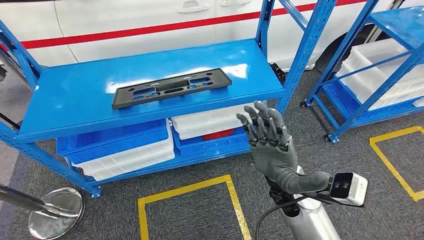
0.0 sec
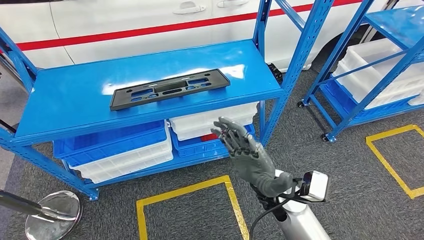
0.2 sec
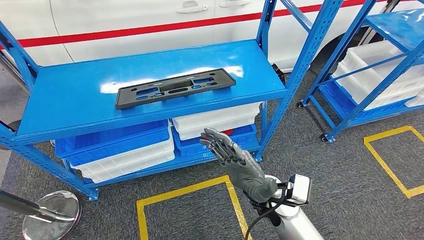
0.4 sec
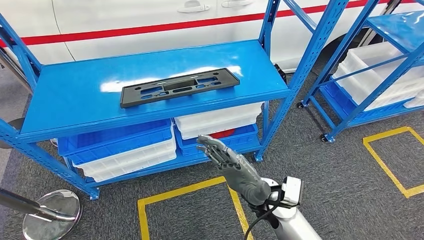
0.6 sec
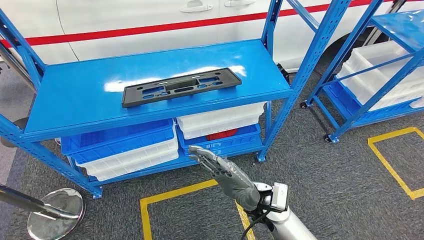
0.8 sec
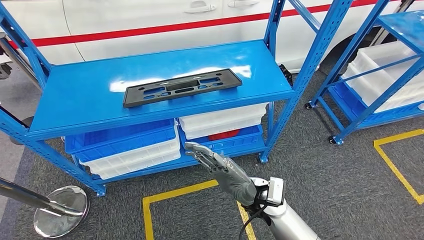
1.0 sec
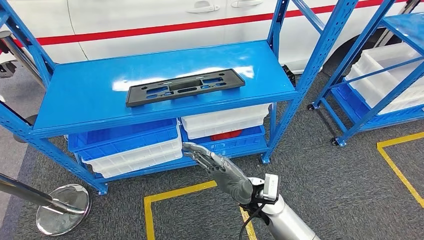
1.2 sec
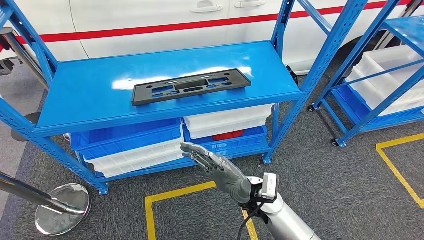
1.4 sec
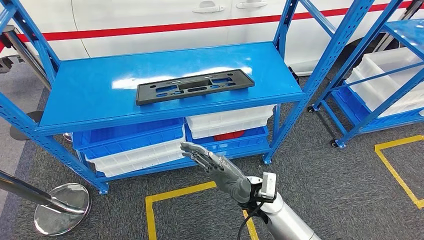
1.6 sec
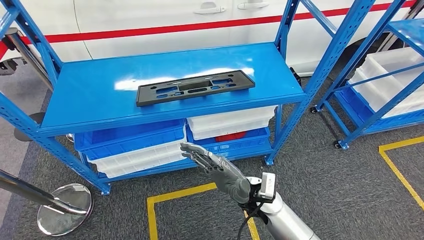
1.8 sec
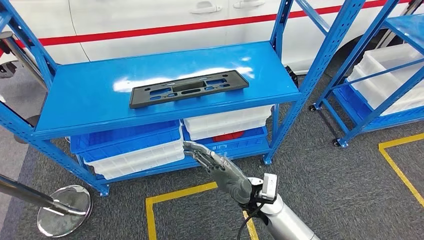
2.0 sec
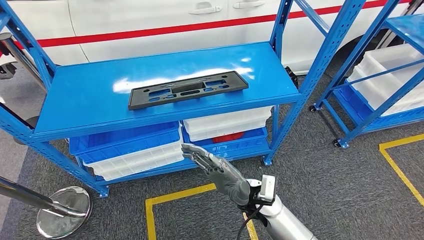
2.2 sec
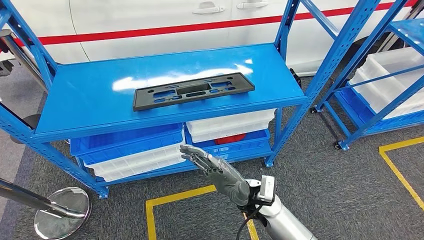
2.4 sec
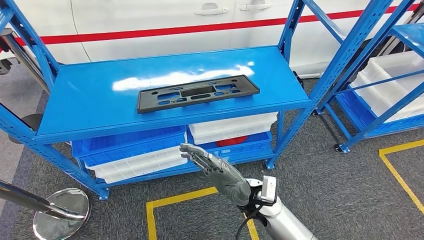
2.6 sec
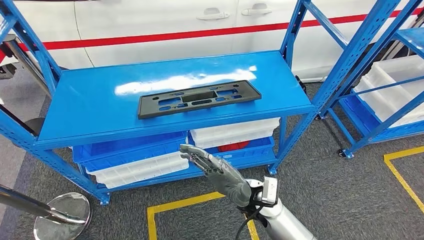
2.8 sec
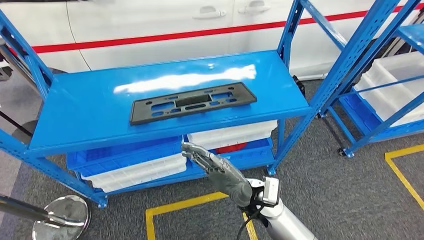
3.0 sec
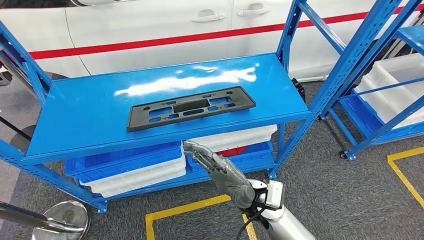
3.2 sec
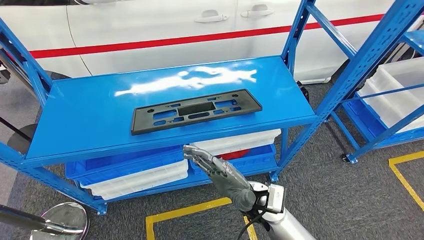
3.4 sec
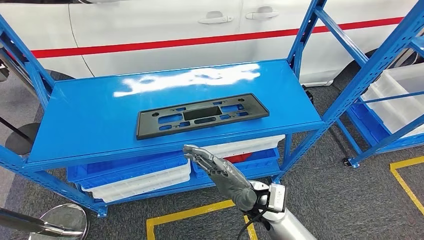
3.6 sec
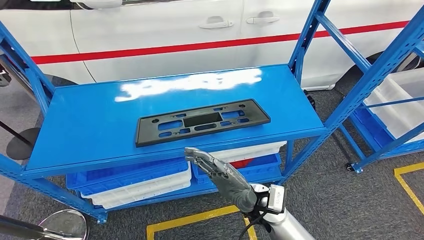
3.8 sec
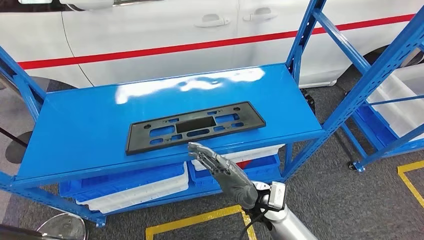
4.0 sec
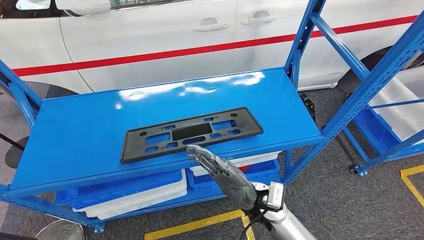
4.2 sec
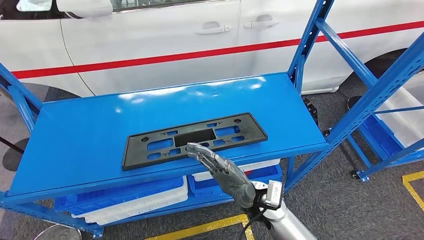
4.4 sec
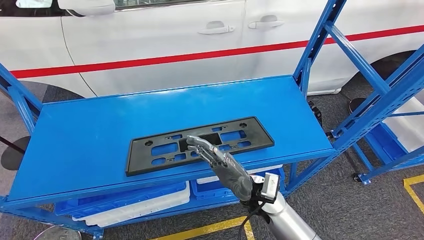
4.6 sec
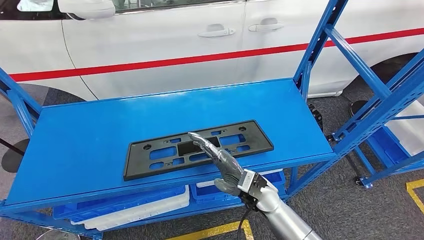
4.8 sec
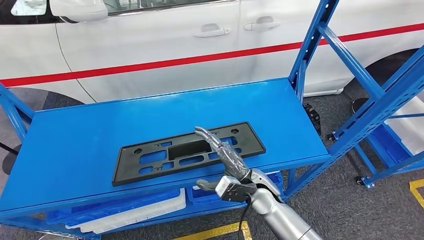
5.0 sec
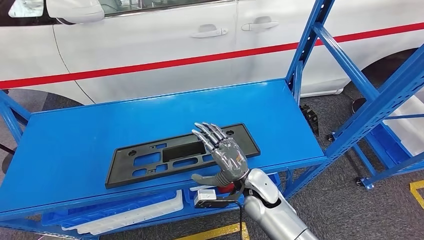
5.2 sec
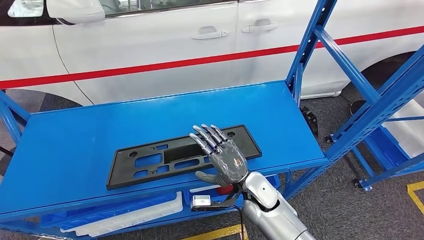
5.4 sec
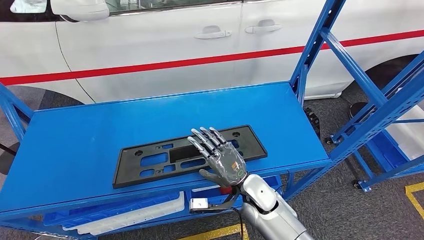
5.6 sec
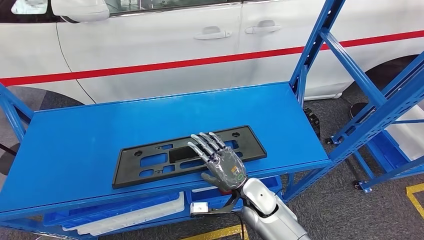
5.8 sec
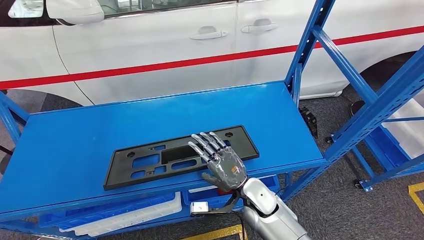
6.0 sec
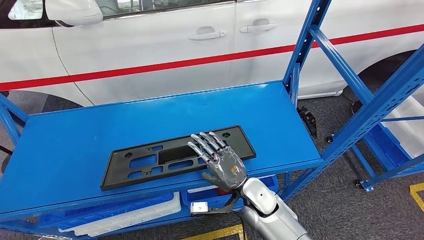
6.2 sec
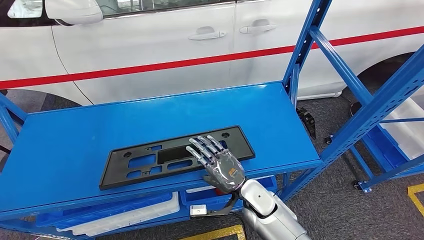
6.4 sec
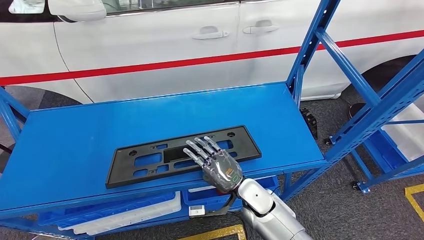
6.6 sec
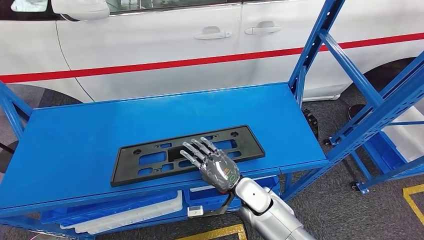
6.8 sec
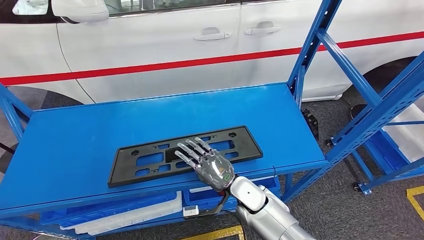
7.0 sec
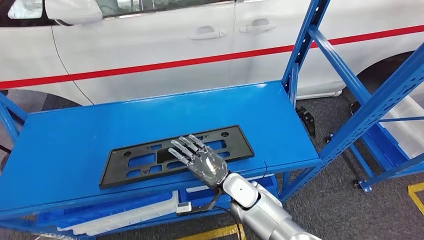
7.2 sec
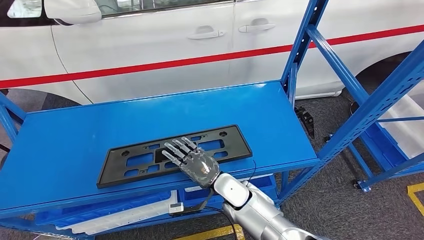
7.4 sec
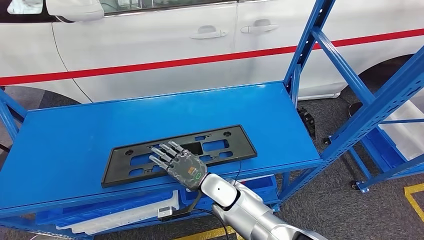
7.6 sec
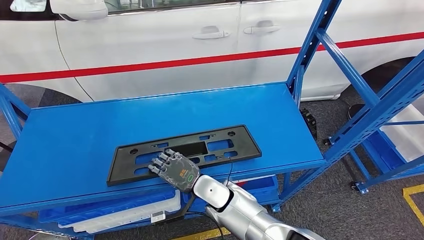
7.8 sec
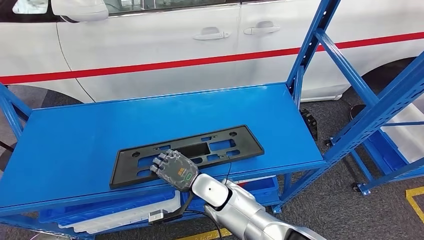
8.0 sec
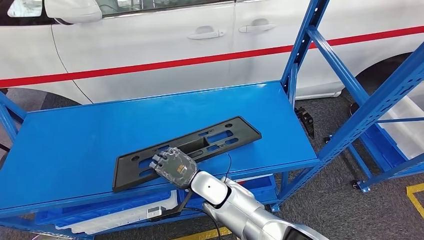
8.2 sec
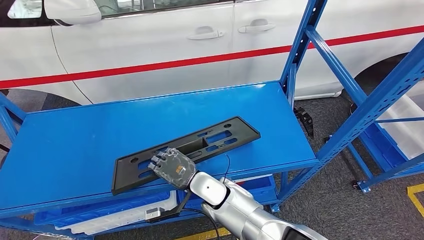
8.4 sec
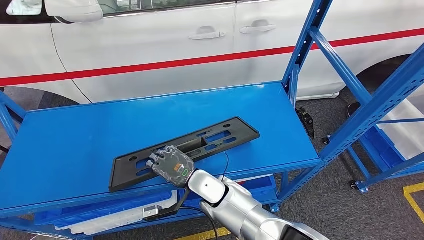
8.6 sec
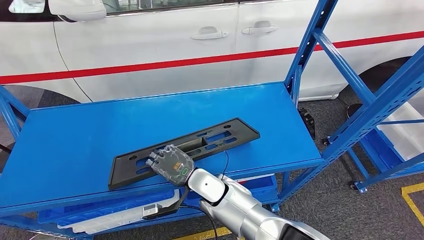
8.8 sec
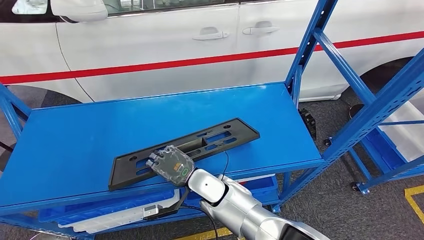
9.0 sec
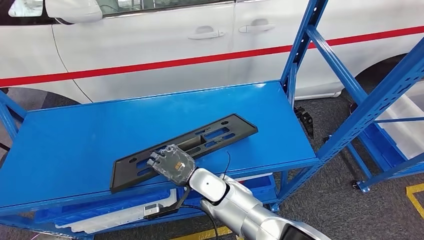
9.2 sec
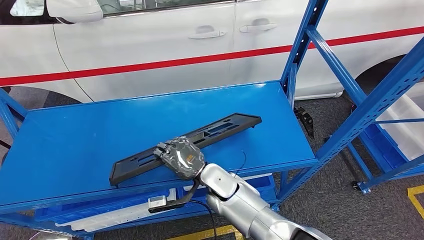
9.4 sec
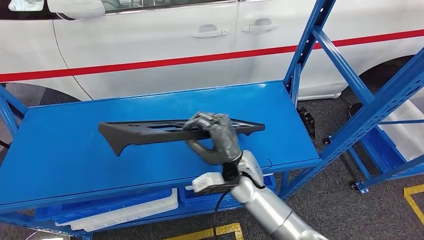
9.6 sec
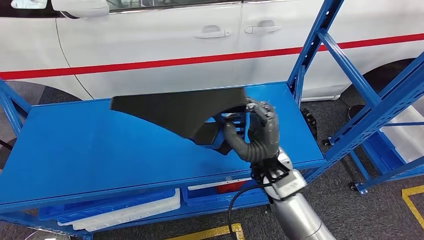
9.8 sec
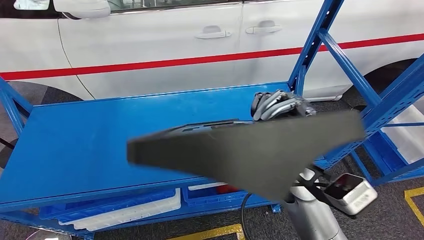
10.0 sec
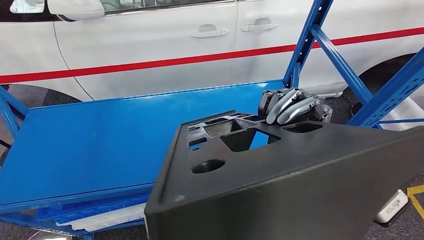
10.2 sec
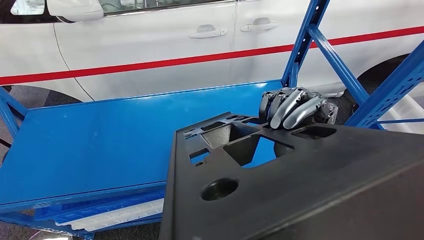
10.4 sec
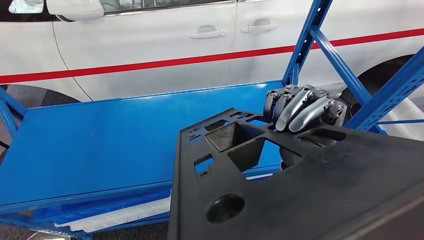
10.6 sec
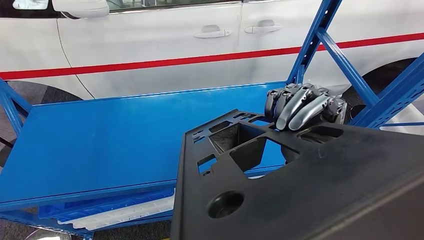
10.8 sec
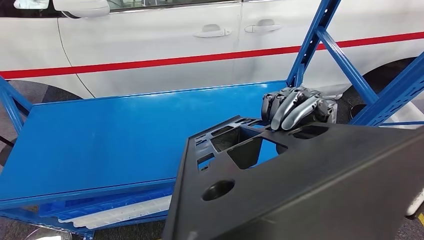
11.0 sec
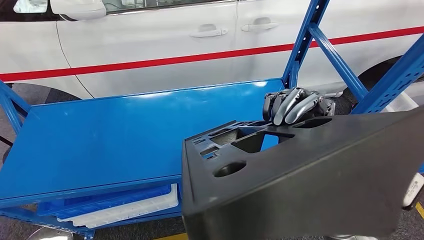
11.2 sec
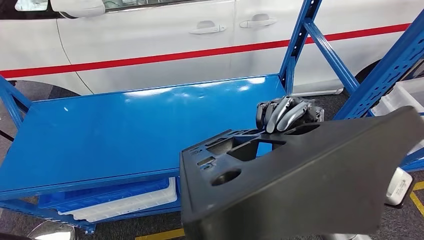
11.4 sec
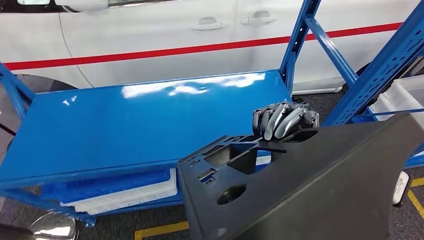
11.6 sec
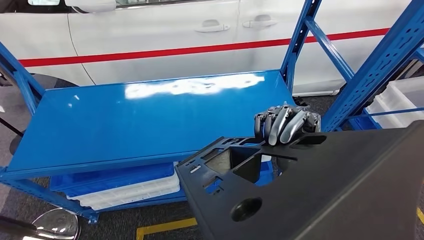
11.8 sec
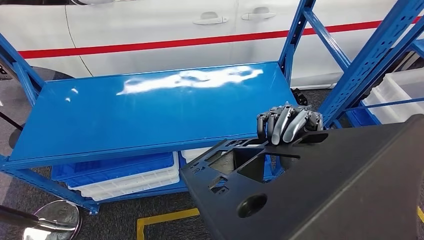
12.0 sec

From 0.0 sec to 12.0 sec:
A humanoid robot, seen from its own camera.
Step, from 0.0 sec to 9.4 sec: Pick up the large material from the shelf.
From 6.0 sec to 7.6 sec: The right hand moves to the left, approximately 10 cm.
From 7.6 sec to 9.0 sec: The hands make only small movements.

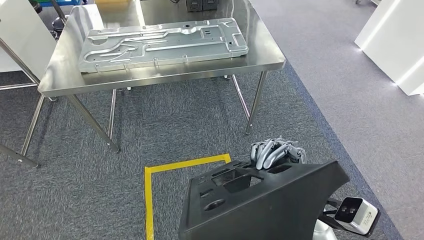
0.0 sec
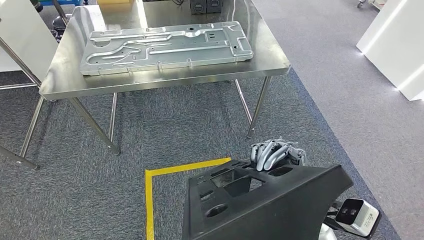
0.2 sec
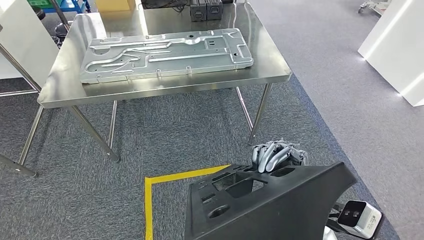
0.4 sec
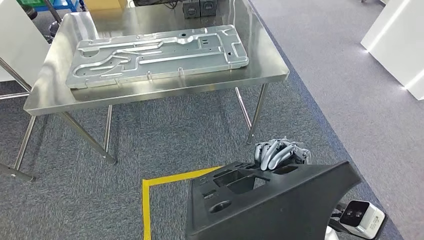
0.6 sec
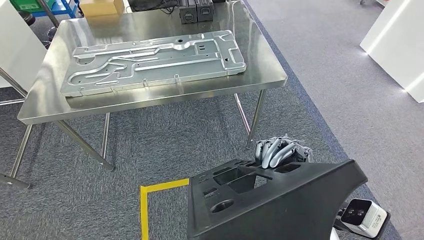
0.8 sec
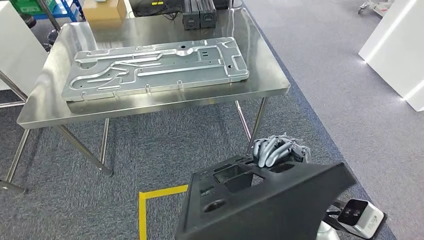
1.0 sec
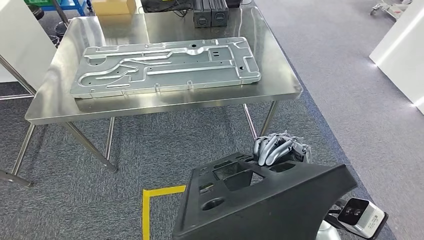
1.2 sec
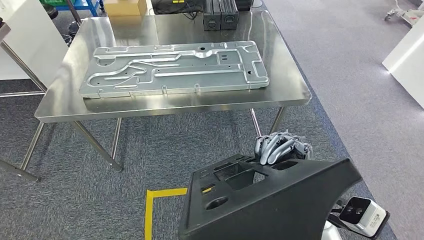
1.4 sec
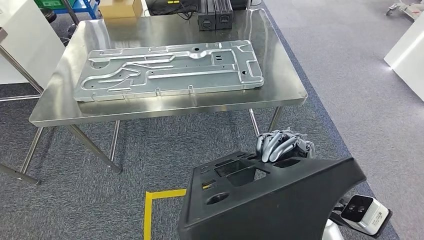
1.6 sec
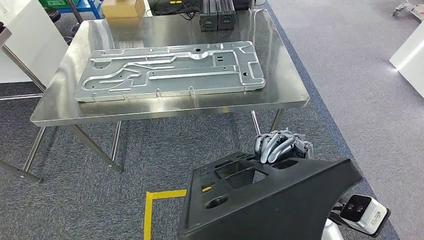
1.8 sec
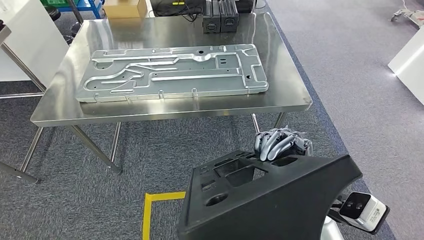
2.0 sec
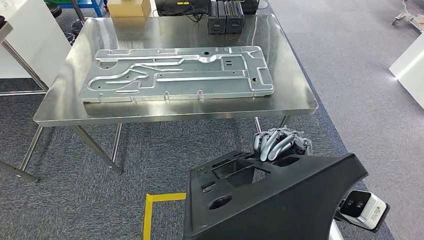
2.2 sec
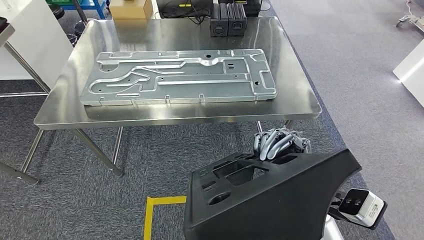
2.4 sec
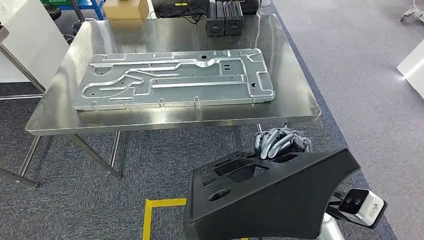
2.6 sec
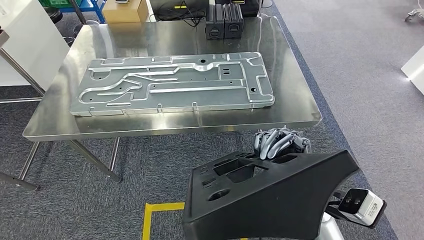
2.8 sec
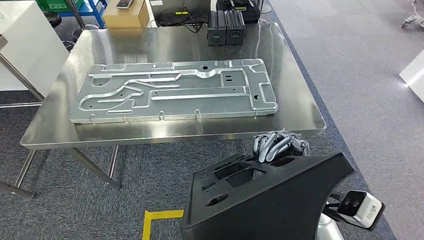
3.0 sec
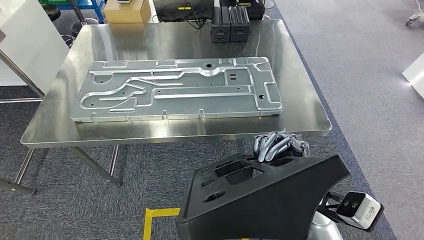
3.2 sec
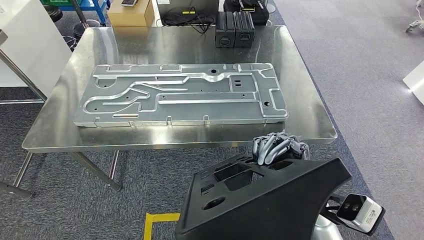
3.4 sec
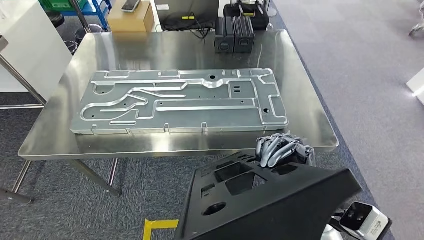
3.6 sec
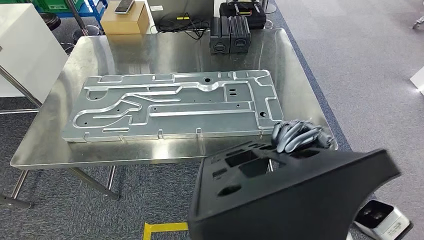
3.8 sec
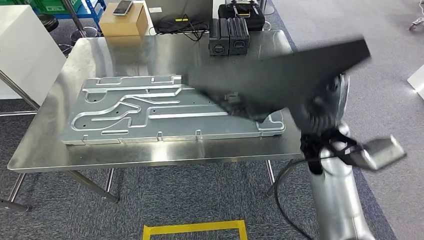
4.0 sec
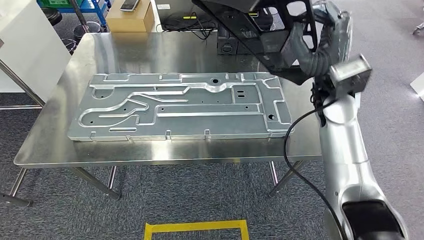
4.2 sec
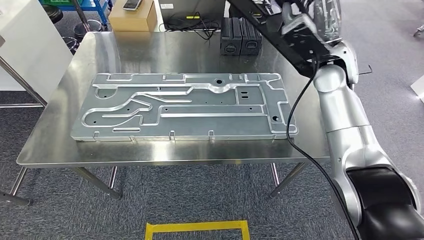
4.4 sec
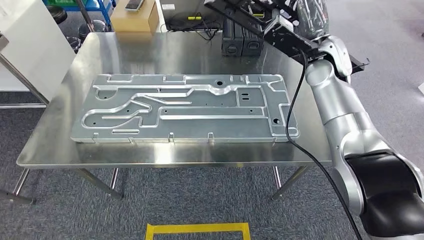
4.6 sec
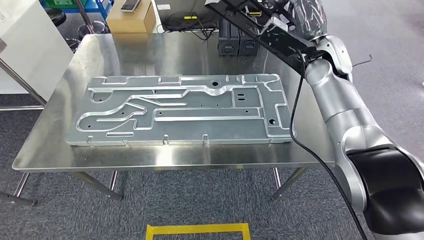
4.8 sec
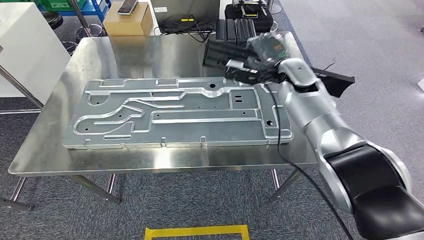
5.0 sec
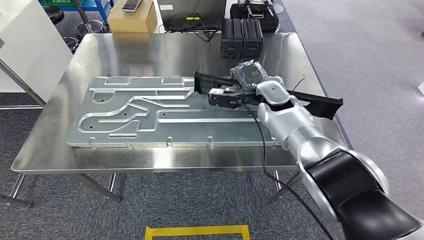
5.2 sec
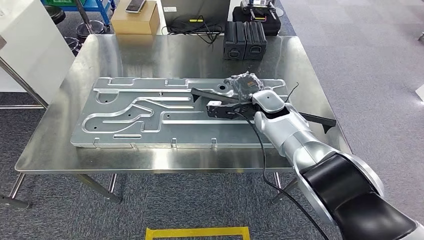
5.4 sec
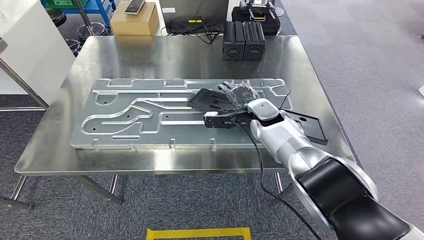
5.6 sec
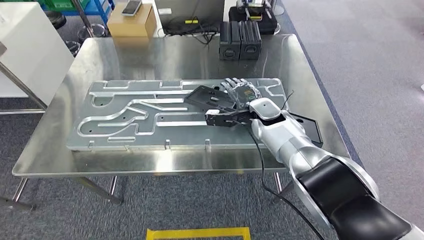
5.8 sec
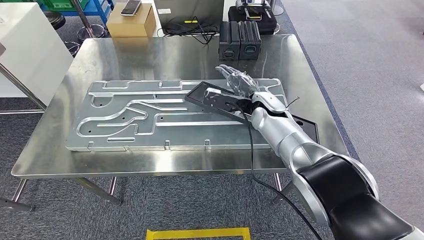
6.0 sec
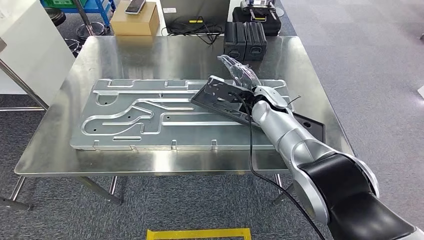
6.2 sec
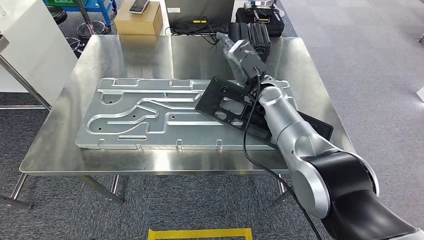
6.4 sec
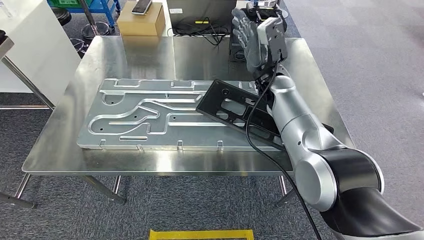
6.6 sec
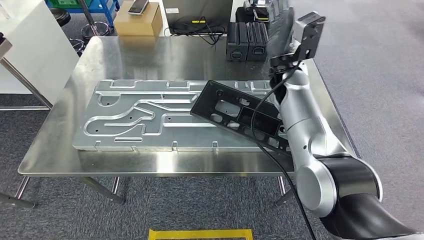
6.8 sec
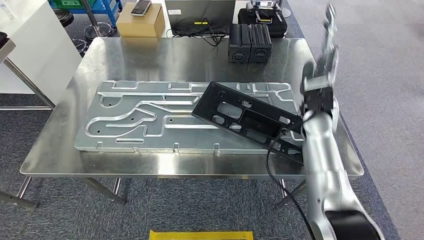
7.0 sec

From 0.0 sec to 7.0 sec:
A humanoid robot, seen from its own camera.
Step, from 0.4 sec to 3.4 sec: Move the large material to the workbench.
